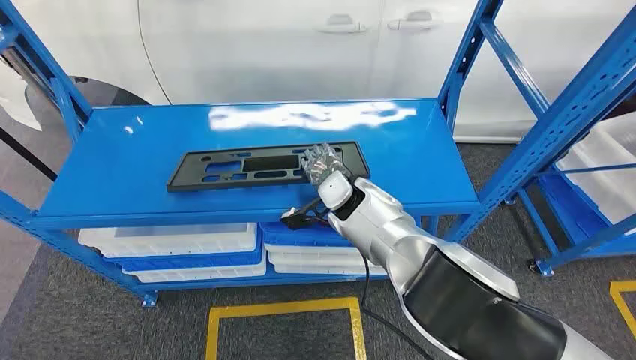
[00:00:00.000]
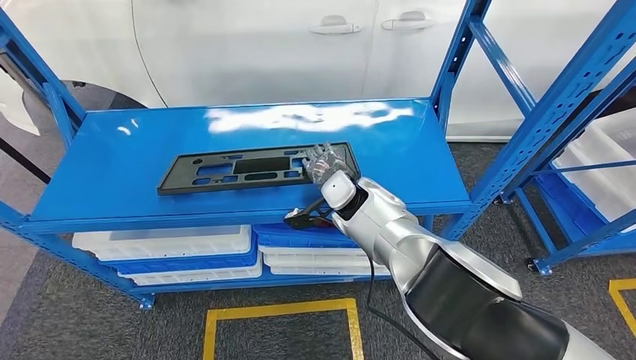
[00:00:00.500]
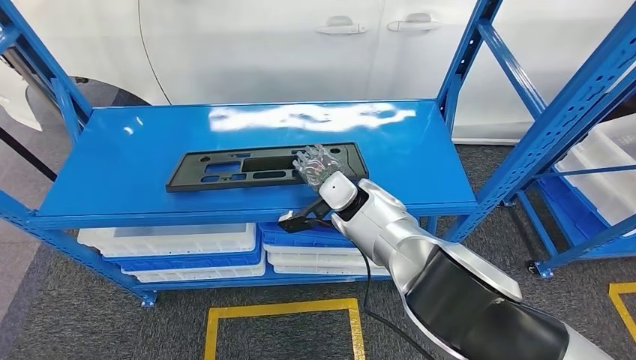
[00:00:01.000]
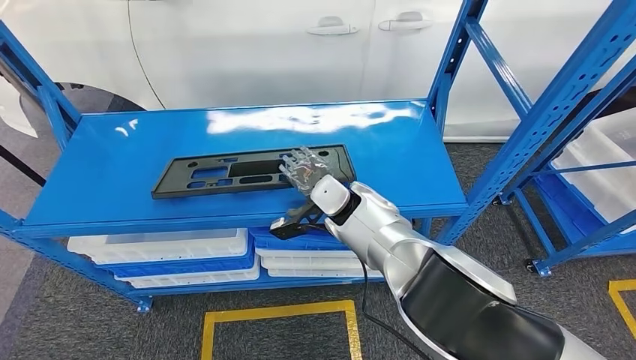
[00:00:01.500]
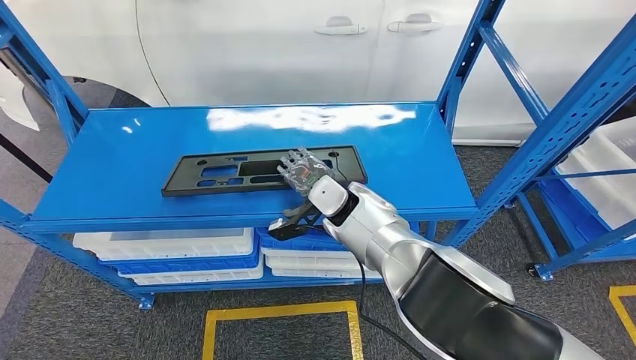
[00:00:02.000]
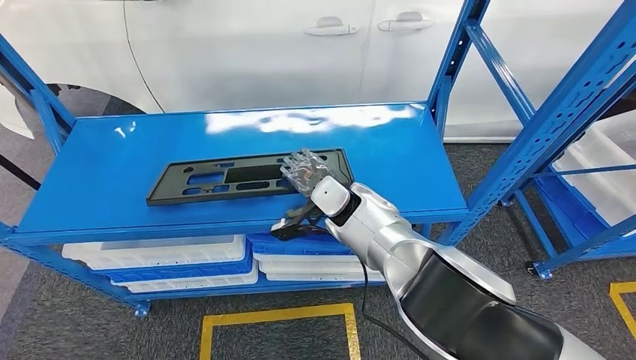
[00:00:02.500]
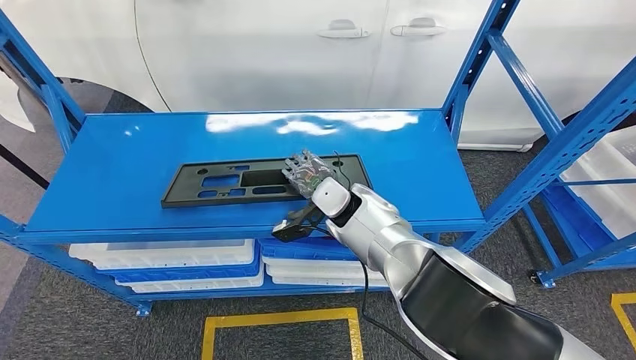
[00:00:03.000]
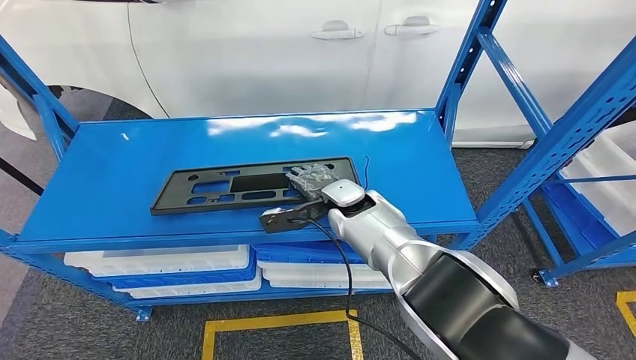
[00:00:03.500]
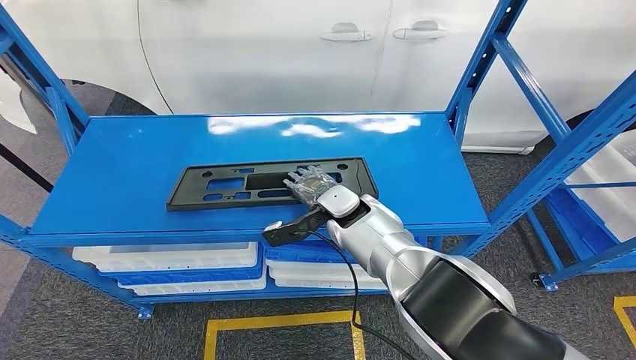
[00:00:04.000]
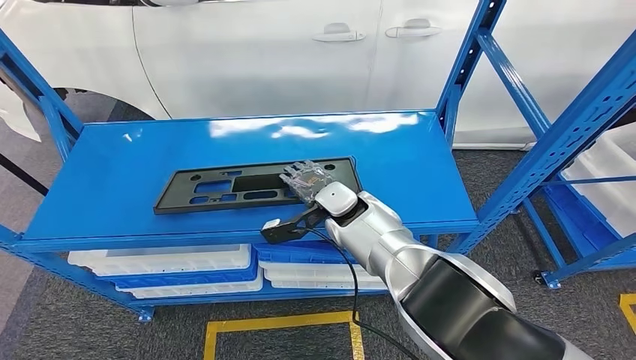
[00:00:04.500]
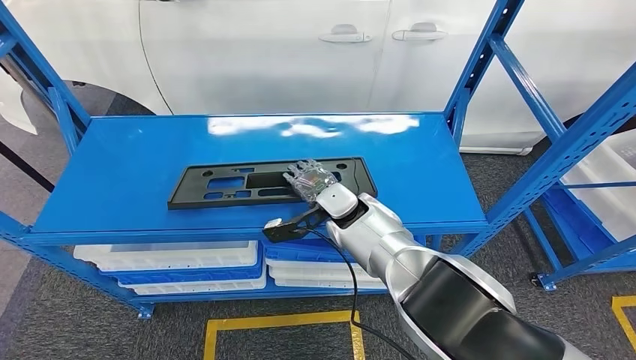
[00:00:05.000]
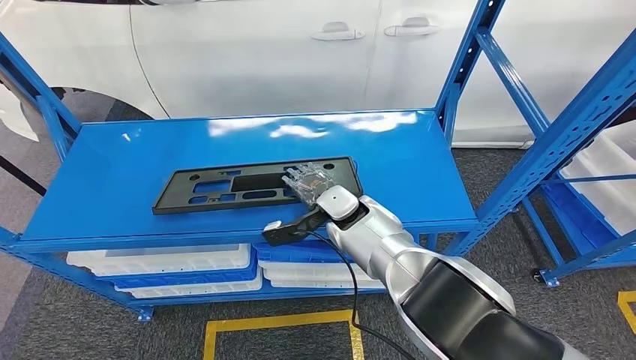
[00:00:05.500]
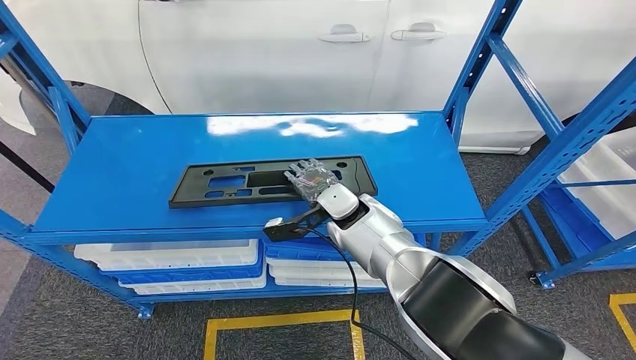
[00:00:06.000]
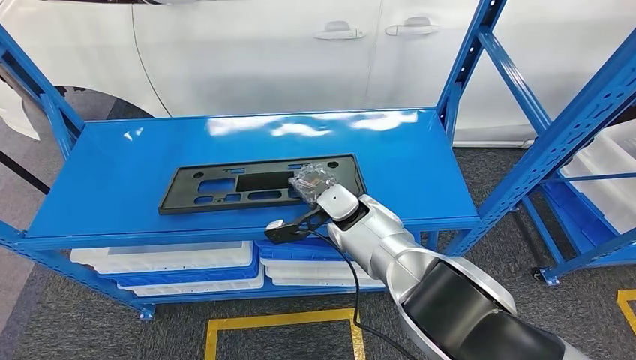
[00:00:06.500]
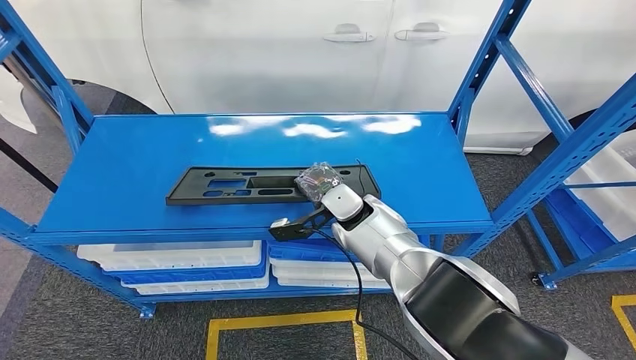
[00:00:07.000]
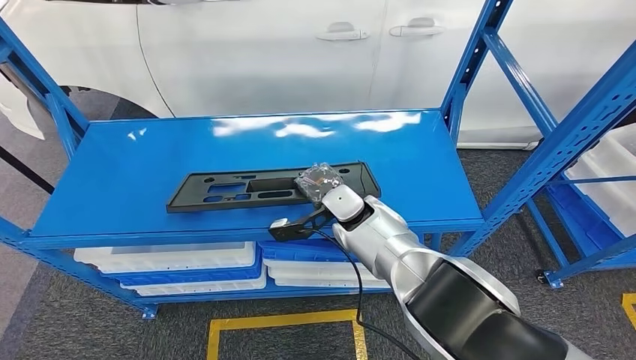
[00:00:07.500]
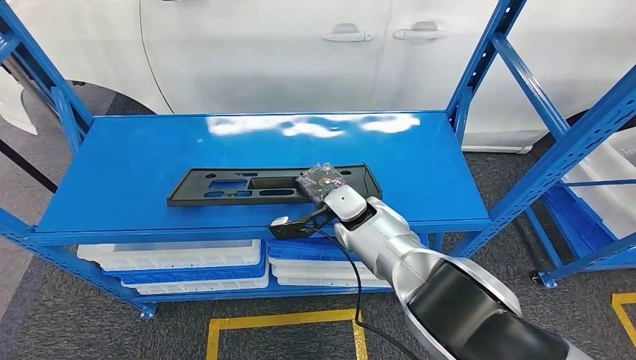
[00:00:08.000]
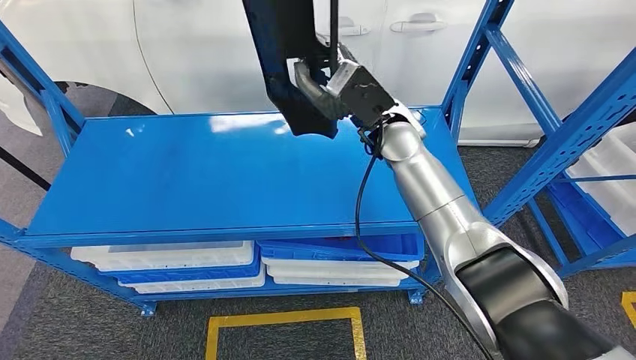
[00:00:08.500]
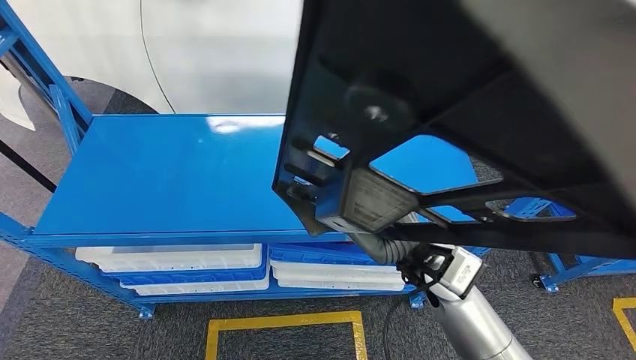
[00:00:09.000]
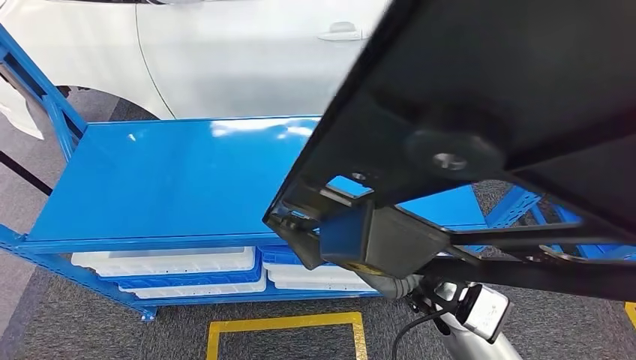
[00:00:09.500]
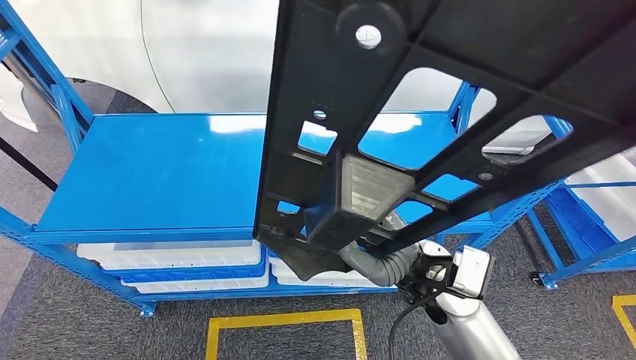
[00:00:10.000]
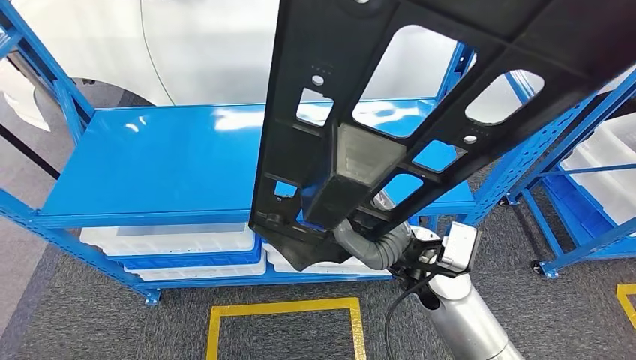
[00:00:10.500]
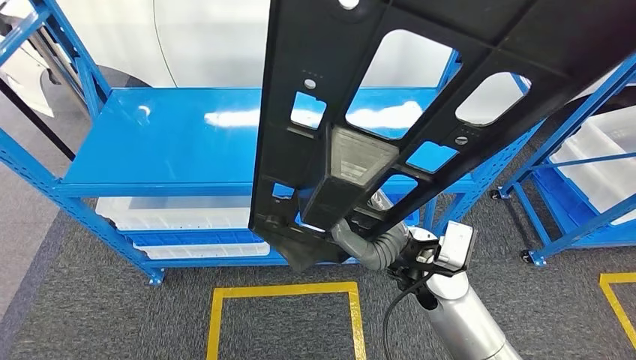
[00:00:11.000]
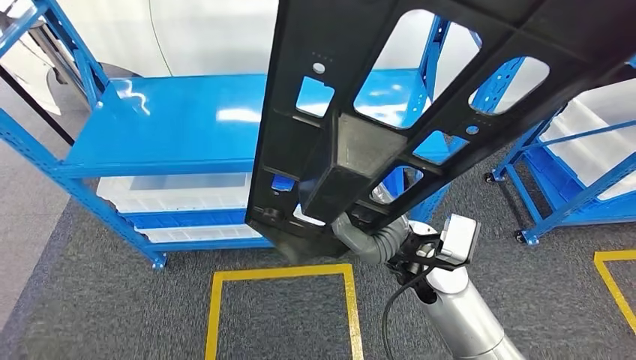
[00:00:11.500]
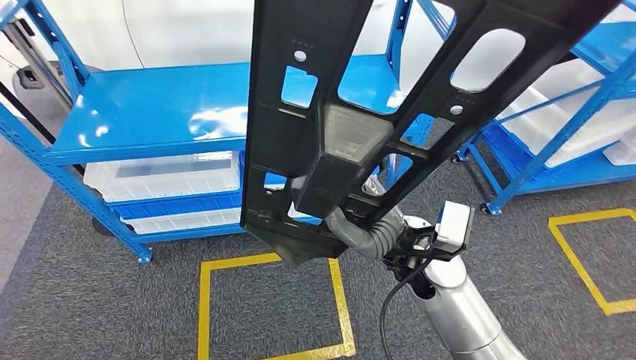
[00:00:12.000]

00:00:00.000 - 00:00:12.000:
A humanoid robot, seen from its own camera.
Step, 00:00:00.000 - 00:00:10.500: Pick up the large material from the shelf.
00:00:04.000 - 00:00:08.000: The hands stay close to where they were, moving slightly.

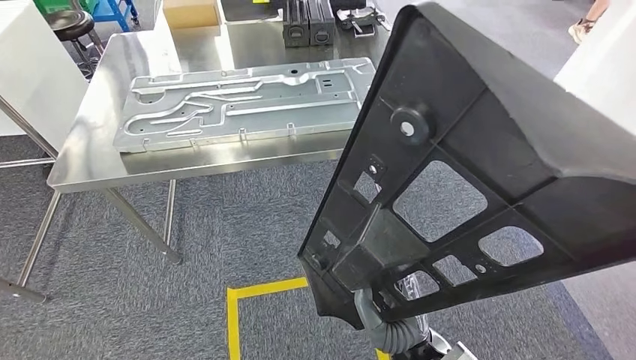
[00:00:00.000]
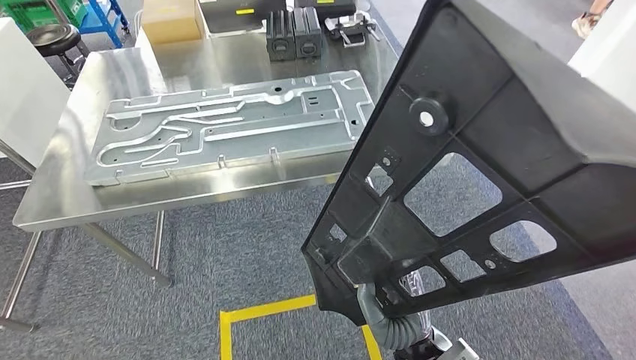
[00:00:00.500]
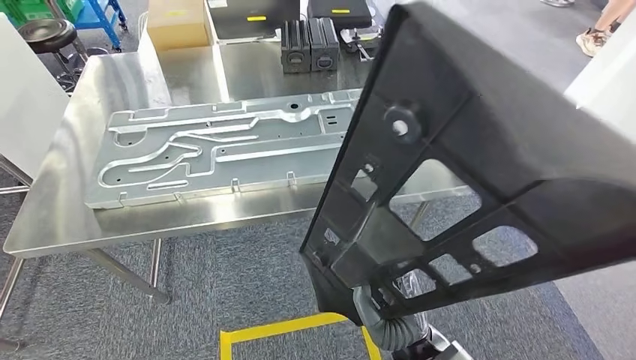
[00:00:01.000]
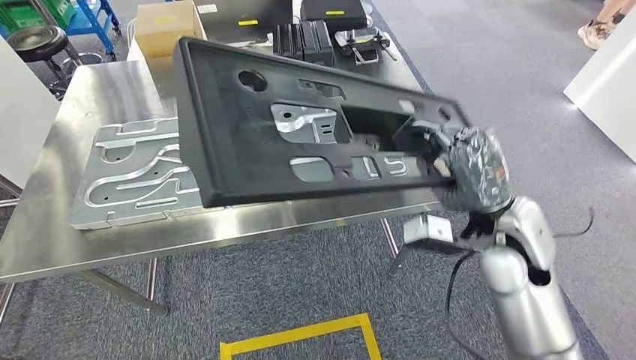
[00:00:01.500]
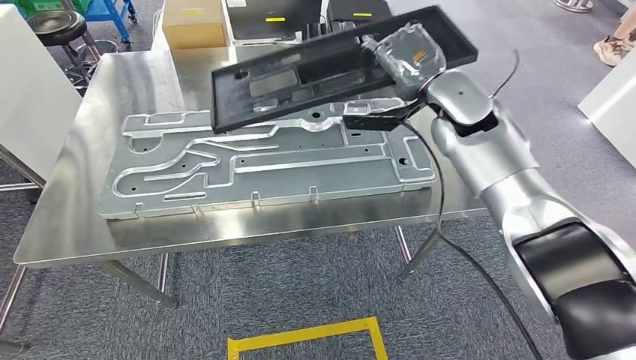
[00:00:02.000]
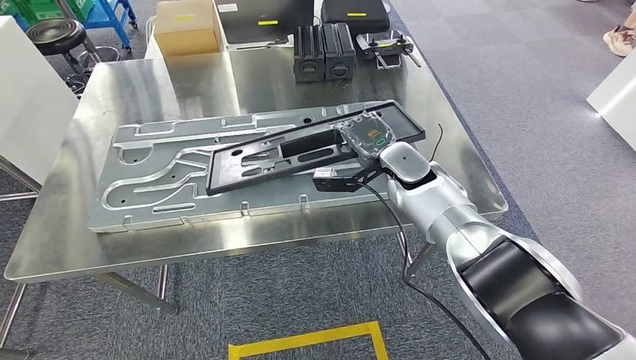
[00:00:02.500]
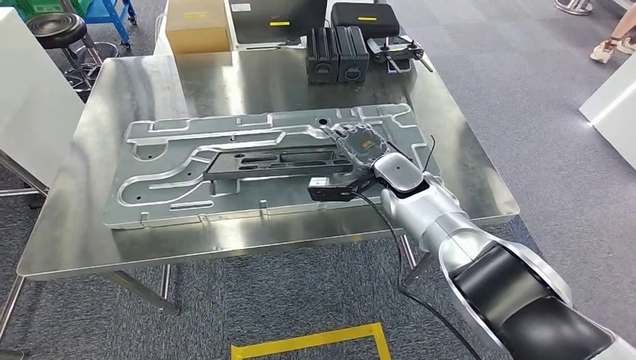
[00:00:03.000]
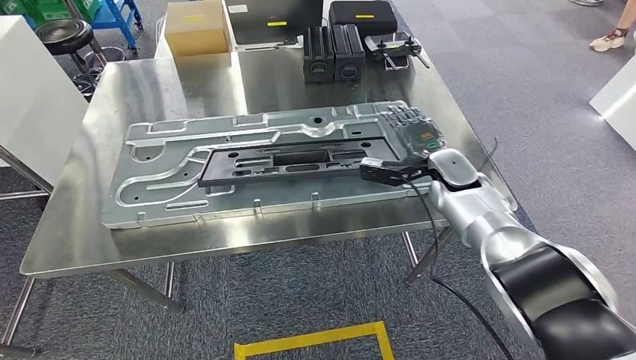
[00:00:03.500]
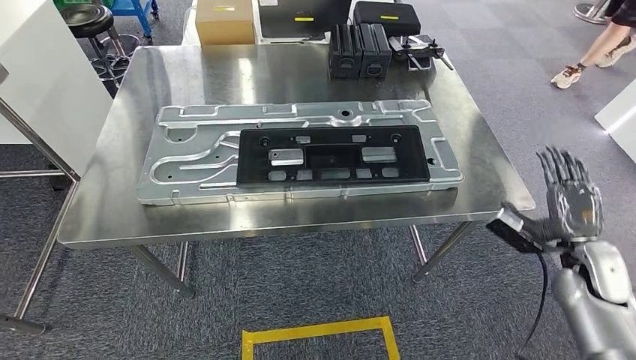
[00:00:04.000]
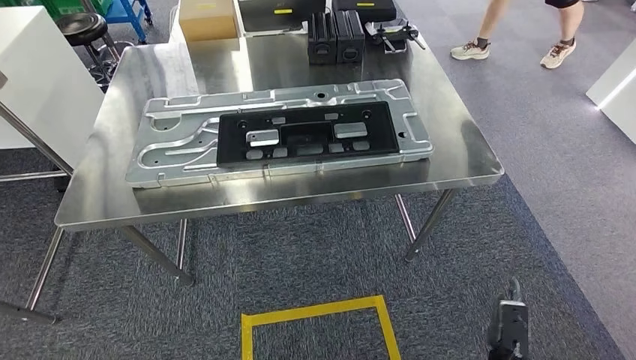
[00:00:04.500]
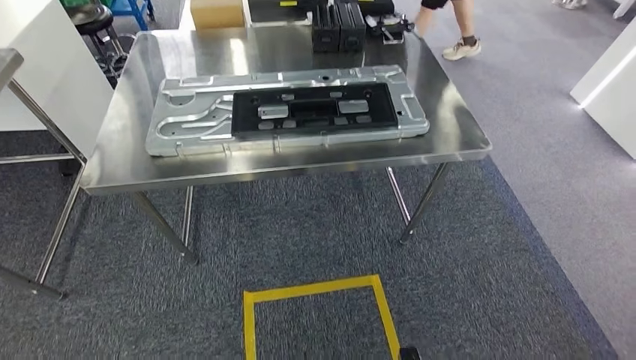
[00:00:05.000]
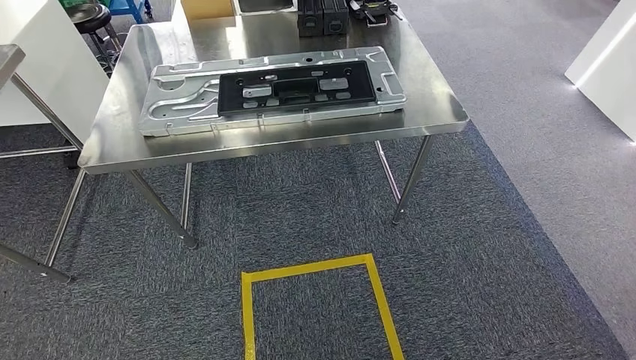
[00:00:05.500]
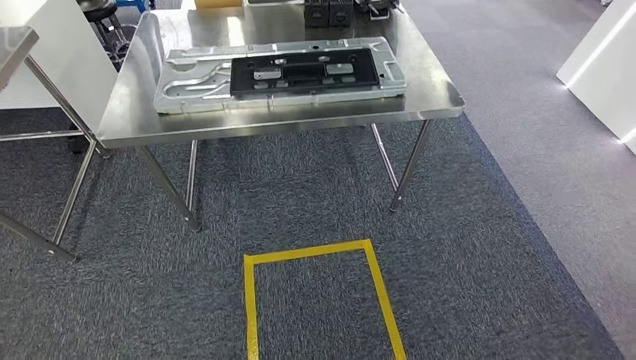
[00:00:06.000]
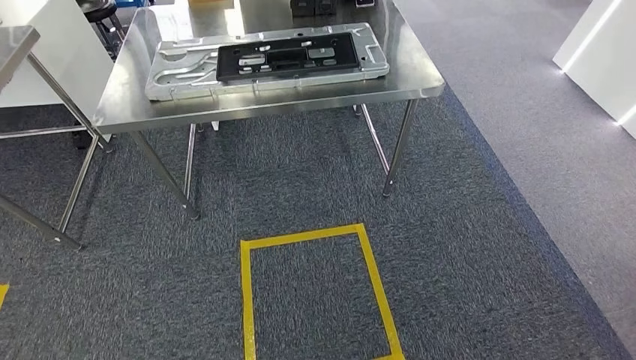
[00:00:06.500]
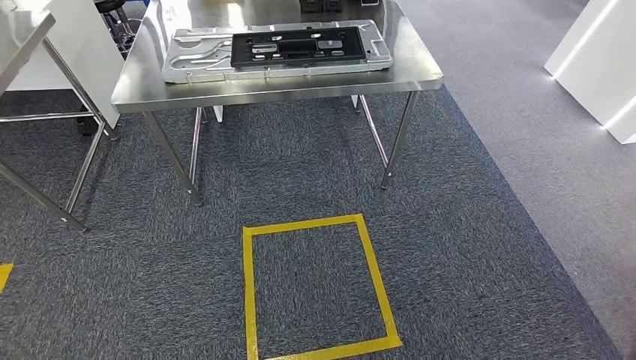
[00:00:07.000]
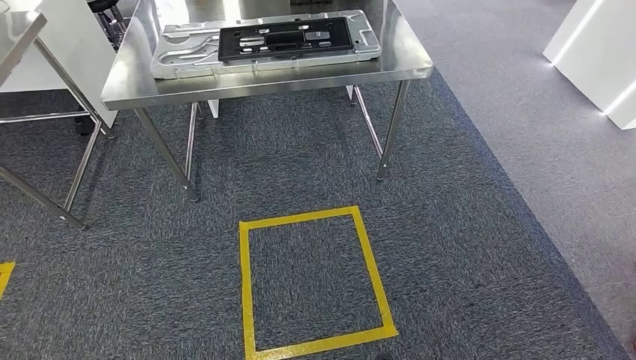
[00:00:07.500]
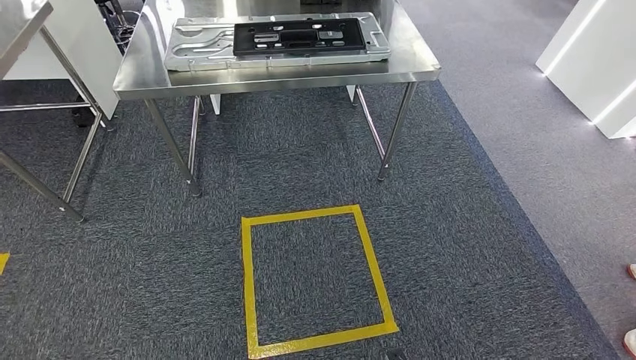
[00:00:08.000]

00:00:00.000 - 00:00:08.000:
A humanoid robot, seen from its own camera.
Step, 00:00:00.000 - 00:00:02.000: Move the large material to the workbench.
Step, 00:00:02.500 - 00:00:05.000: Insert the large material into the corresponding slot on the workbench.
Step, 00:00:05.500 - 00:00:08.000: Return to the initial position at the shelf.
